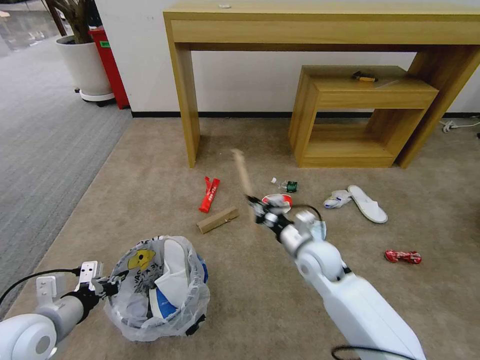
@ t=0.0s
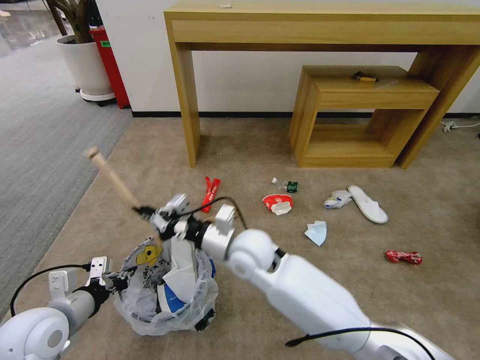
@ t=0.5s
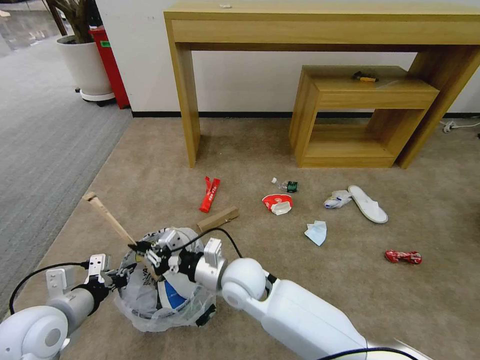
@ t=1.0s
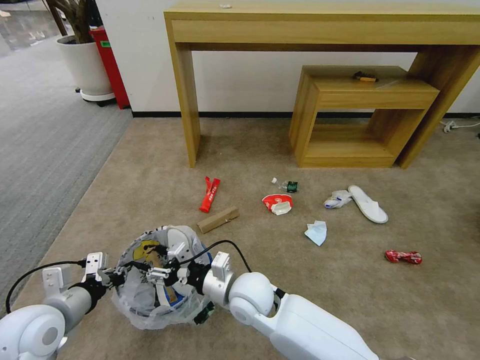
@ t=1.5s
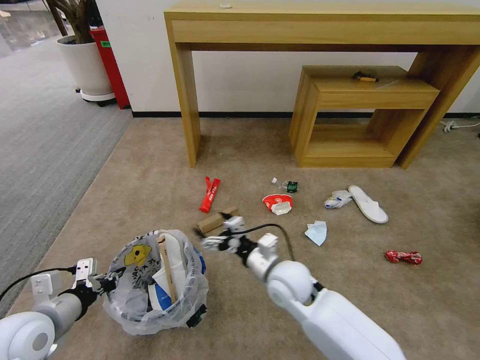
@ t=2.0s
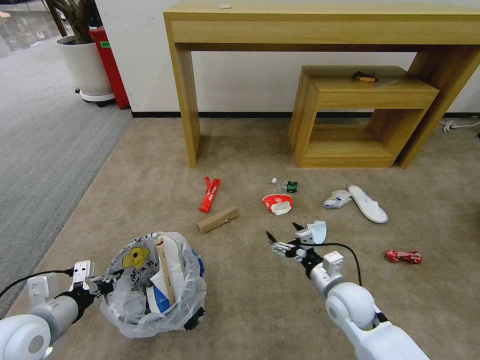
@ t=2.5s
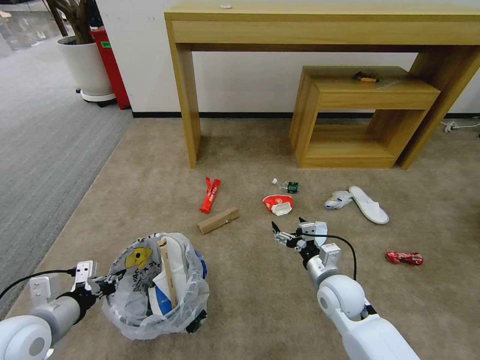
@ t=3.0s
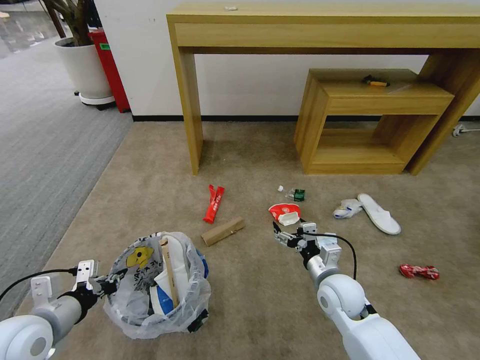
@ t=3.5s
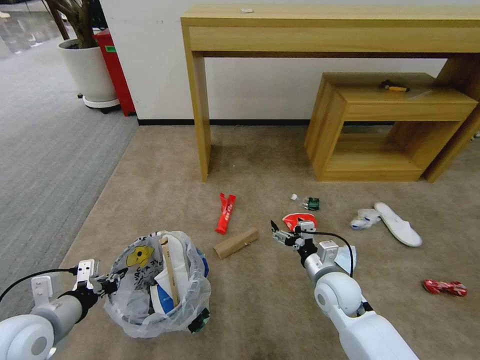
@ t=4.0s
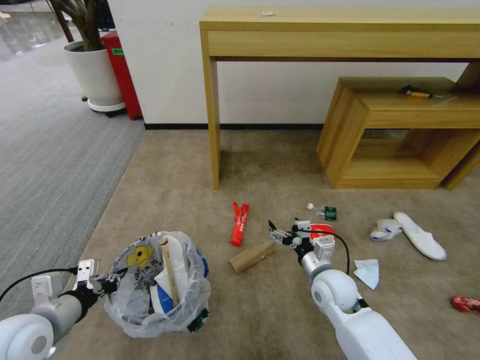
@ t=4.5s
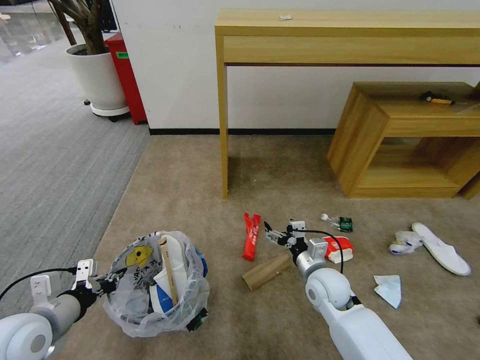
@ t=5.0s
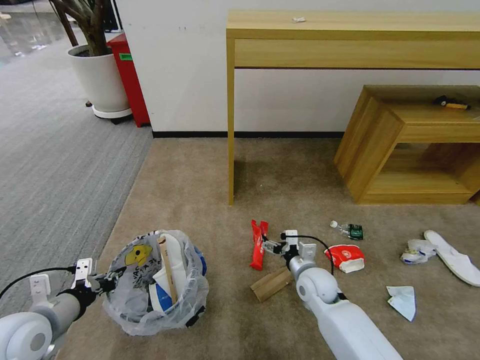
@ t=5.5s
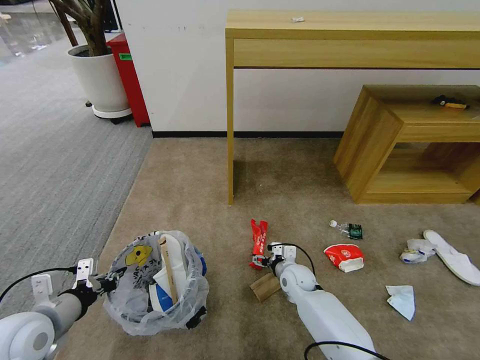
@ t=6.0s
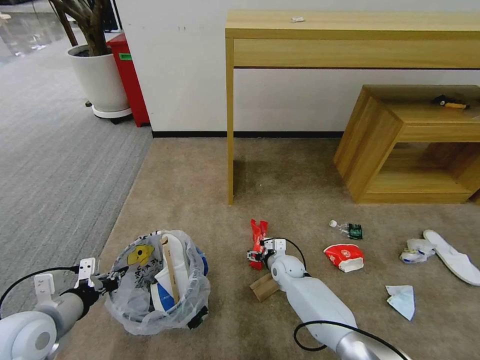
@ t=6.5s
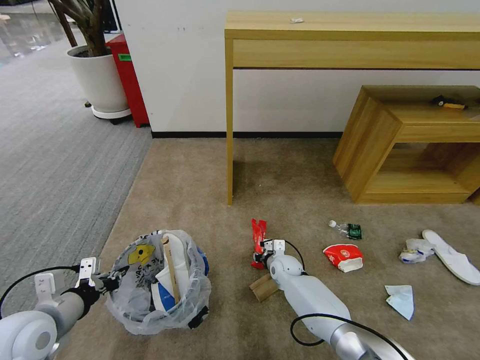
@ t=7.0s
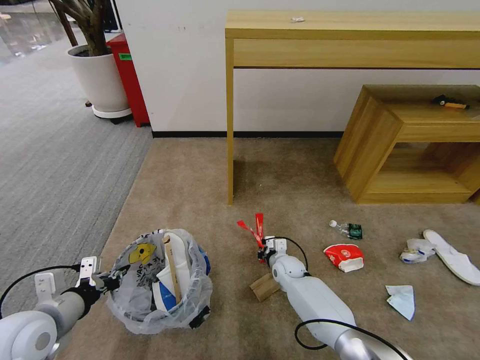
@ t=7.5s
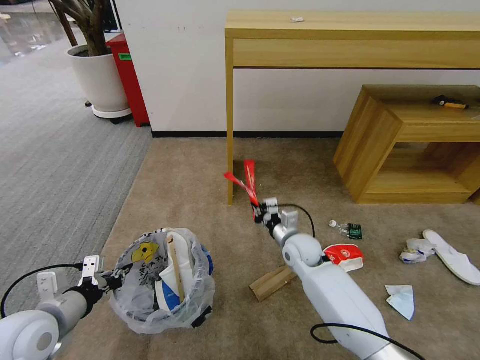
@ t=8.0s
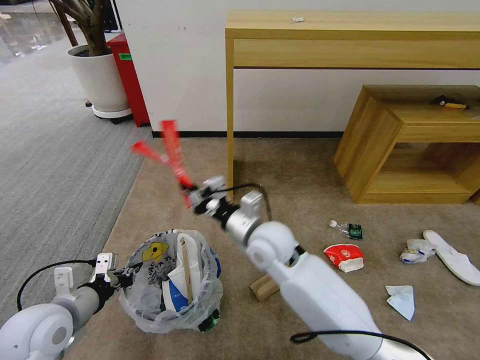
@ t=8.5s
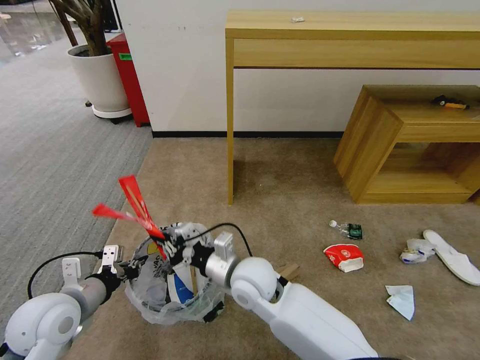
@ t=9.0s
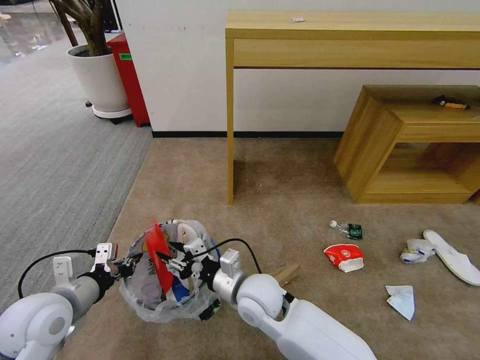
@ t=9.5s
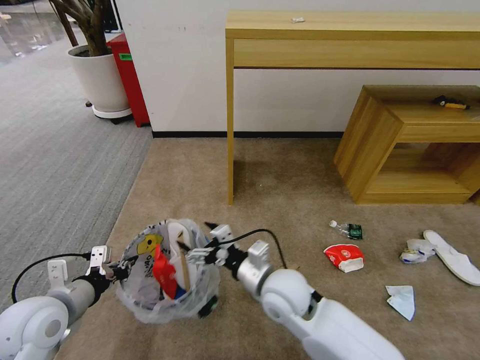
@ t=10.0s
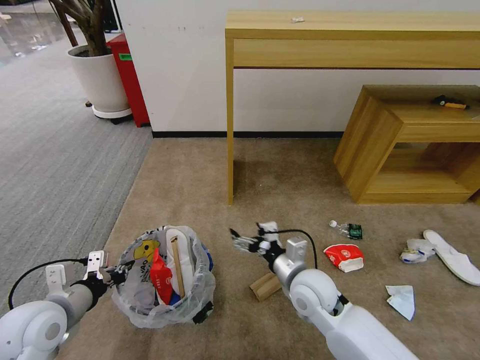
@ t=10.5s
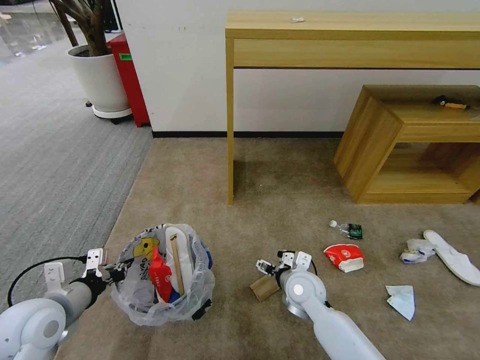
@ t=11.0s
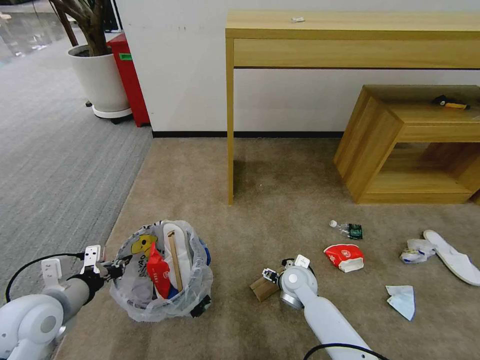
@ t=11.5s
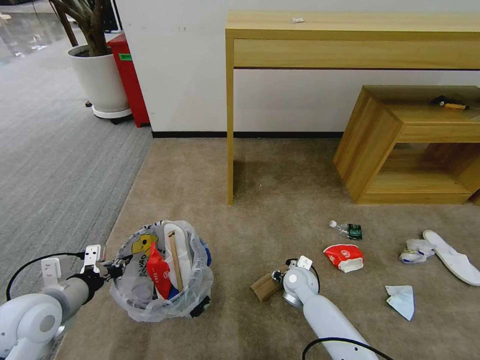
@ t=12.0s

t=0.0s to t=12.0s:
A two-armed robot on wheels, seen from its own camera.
Task of the whole recording: Pick up the trash bin and place the garbage on the floor into it.
t=0.0s to t=2.0s: The right gripper is displaced to the left by roughly 5 cm, and opens.
t=2.0s to t=4.0s: The right gripper moves to the right, about 10 cm.
t=4.0s to t=6.0s: The right gripper heads downward, forward and to the left, covering about 15 cm.
t=6.0s to t=8.0s: The right gripper travels upward by approximately 15 cm, and closes up.
t=8.0s to t=10.0s: The right gripper shifts roughly 15 cm backward, to the left and upward, and opens.
t=10.0s to t=12.0s: The right gripper goes approximately 20 cm downward, forward and to the right, and closes.

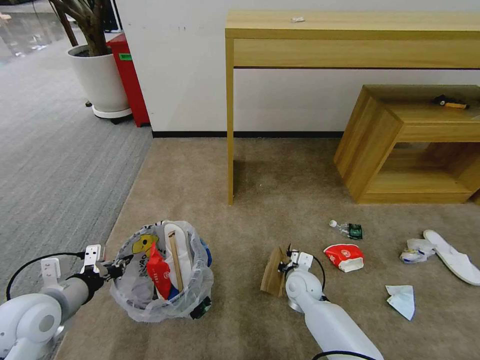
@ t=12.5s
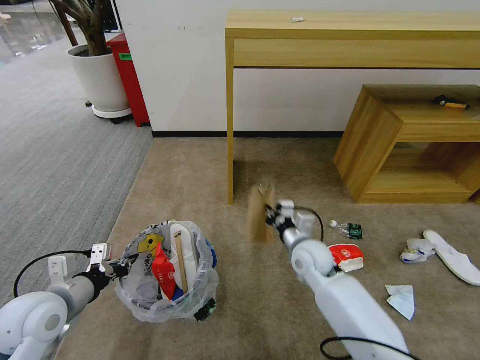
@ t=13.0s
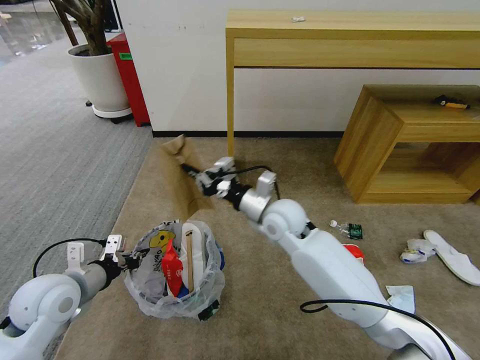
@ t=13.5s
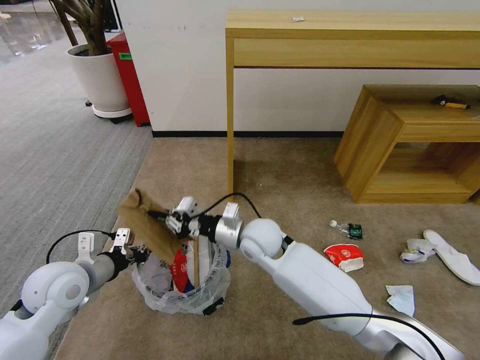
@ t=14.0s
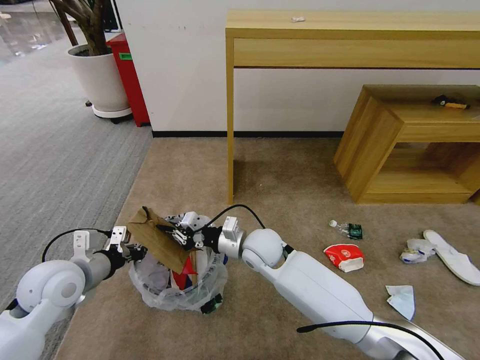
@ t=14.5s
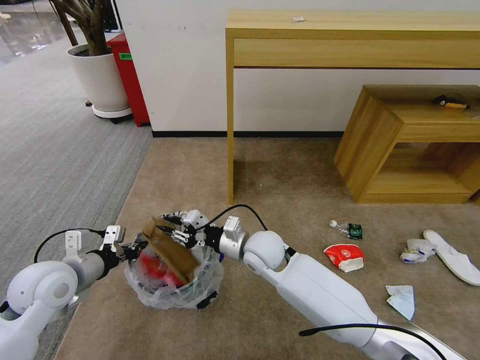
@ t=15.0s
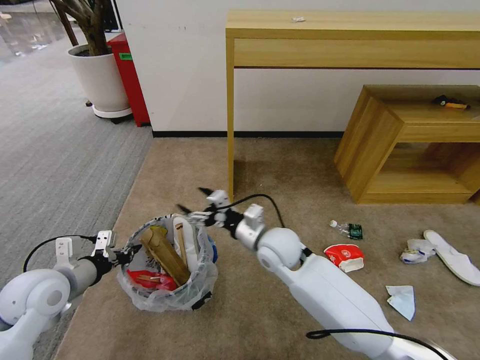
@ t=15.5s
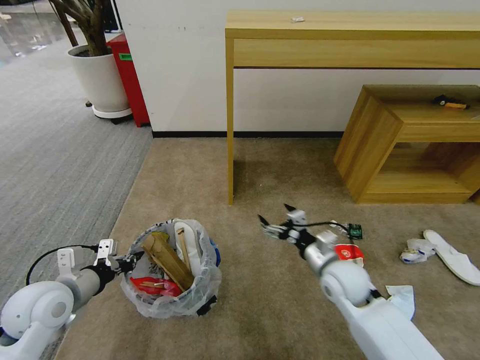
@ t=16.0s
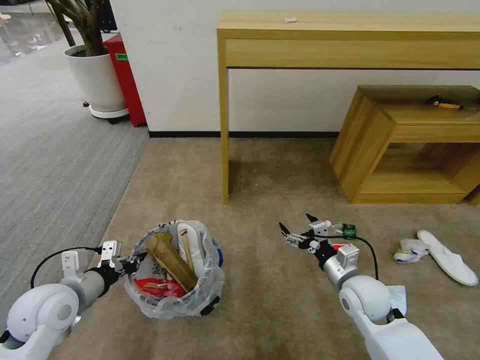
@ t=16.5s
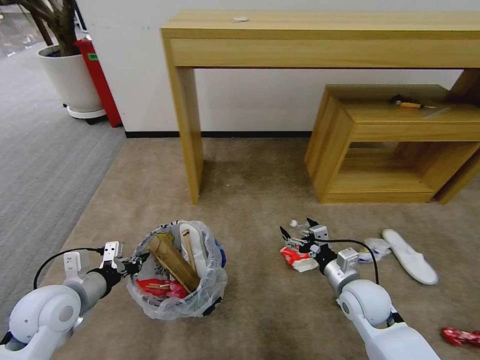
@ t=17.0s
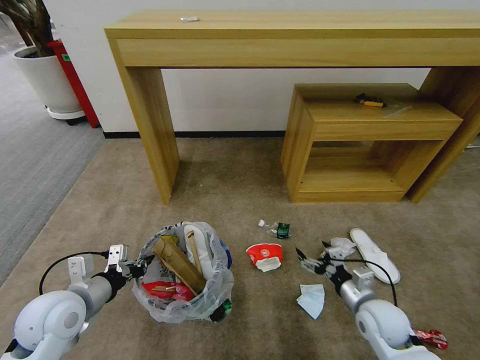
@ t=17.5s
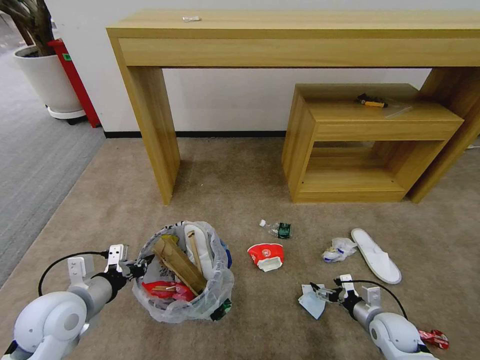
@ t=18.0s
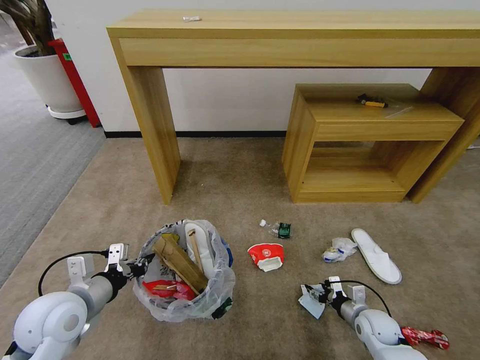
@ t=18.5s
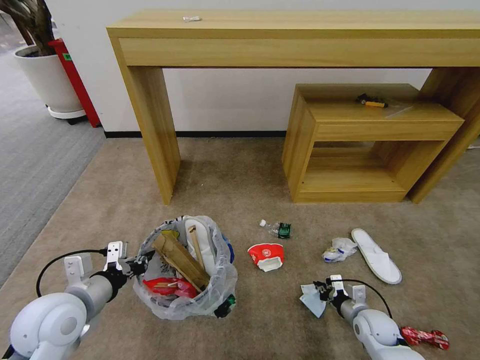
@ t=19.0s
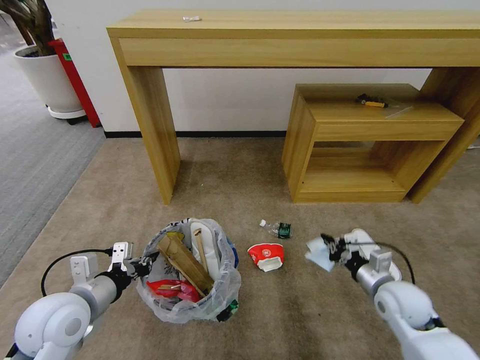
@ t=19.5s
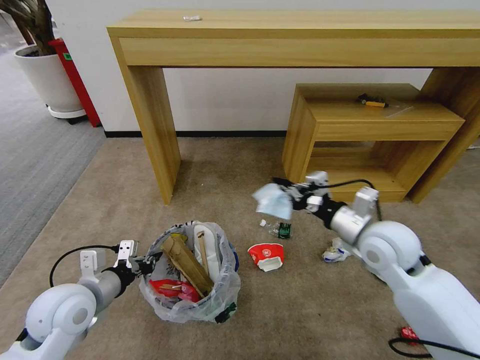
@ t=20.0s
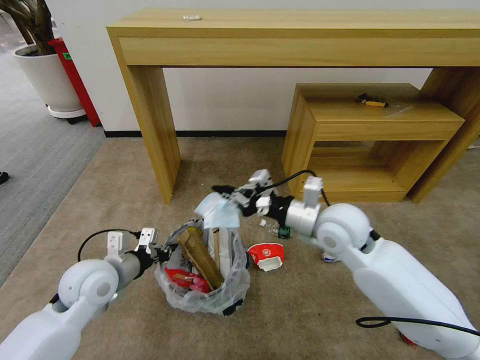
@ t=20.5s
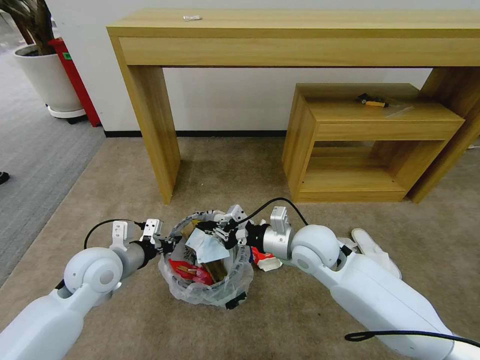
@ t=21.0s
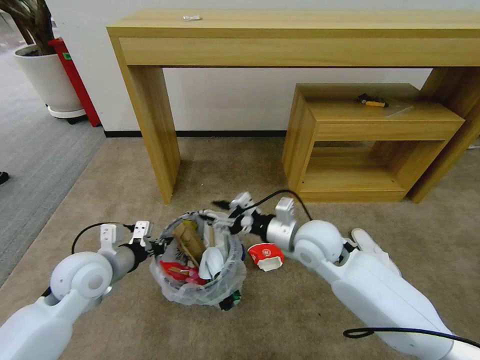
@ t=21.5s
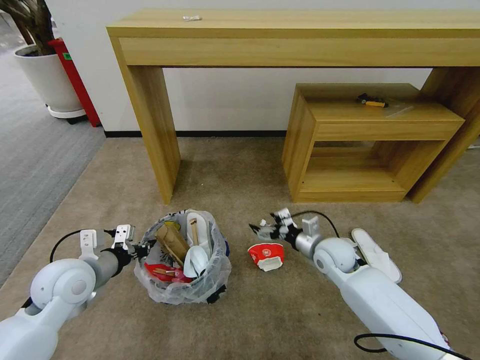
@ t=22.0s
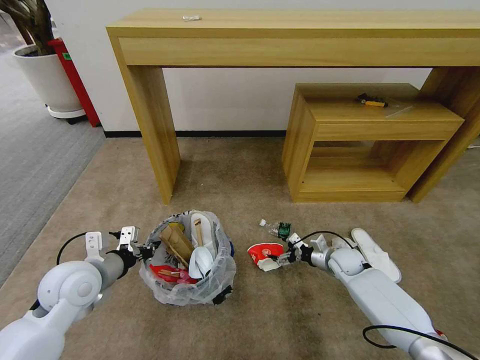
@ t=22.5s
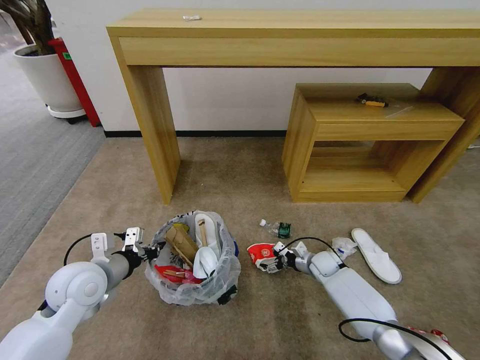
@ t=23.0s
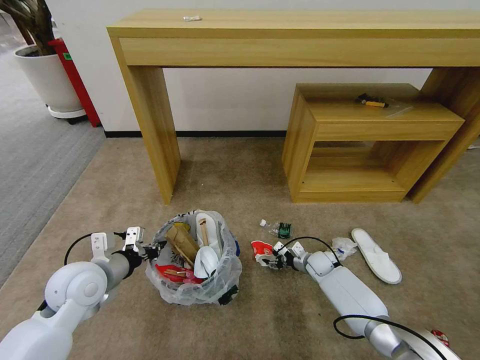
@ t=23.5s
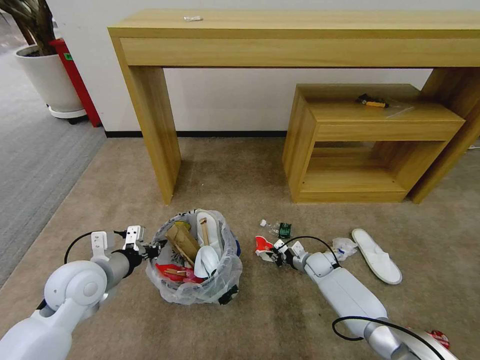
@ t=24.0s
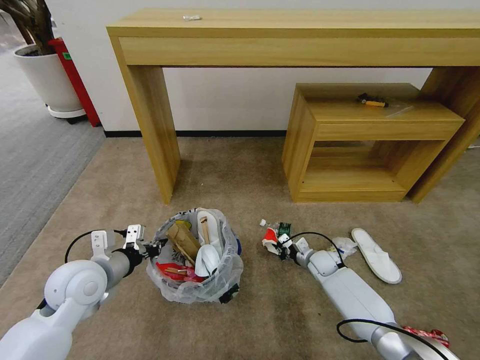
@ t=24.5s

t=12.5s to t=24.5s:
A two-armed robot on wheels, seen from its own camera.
Task of the whole recording: Pick up the trash bin and place the garbage on the floor into it.
t=12.5s to t=14.5s: The right gripper moves upward and to the left, some 20 cm. The left gripper goes some 5 cm forward.
t=14.5s to t=16.5s: The right gripper heads to the right and backward, covering about 25 cm, and opens its fingers.
t=16.5s to t=18.5s: The right gripper travels downward and to the right by about 20 cm.
t=18.5s to t=20.5s: The right gripper moves upward and to the left, some 35 cm, and closes up; the left gripper moves forward, approximately 5 cm.
t=20.5s to t=22.5s: The right gripper moves downward and to the right, approximately 30 cm, and opens up.
t=22.5s to t=24.5s: The right gripper ends up about 5 cm from where it was, and closes up.

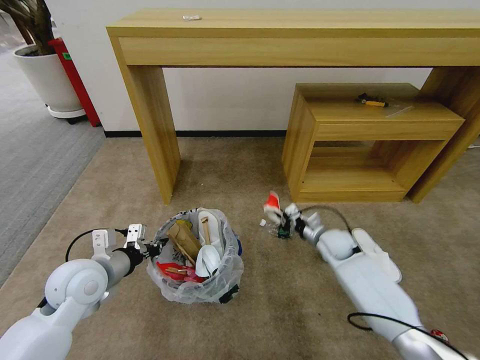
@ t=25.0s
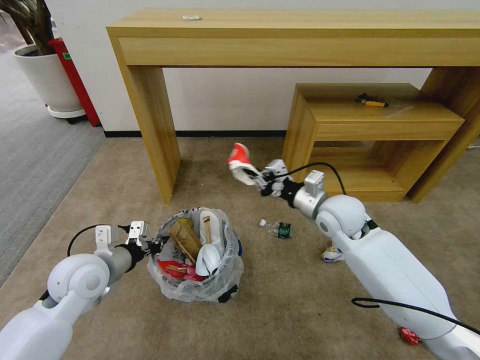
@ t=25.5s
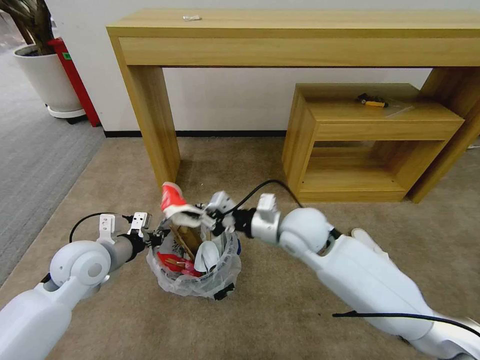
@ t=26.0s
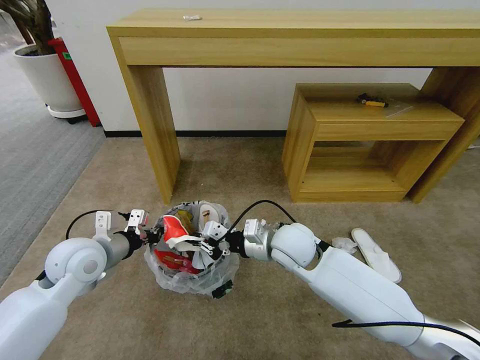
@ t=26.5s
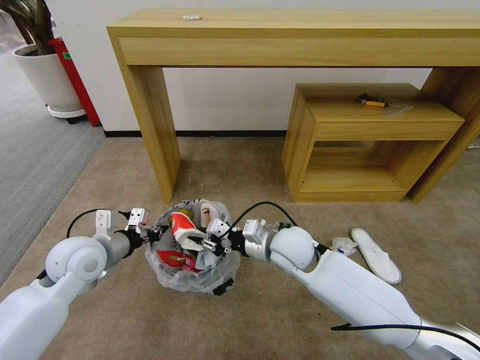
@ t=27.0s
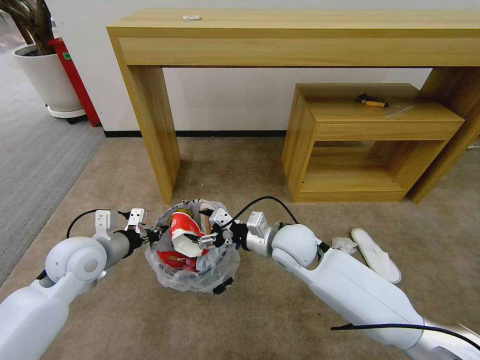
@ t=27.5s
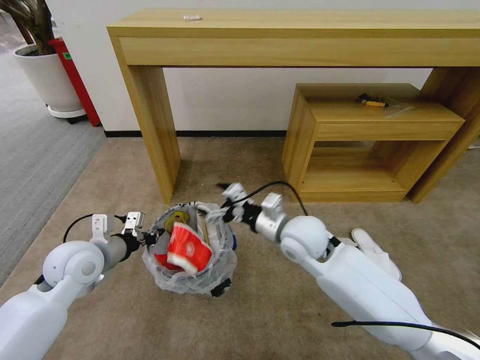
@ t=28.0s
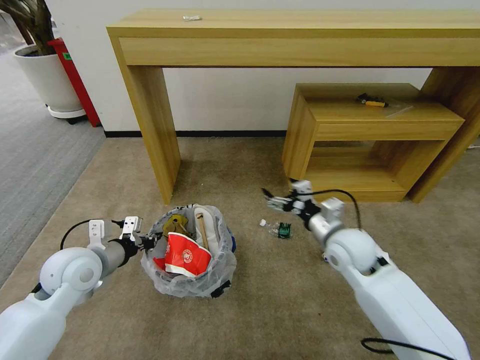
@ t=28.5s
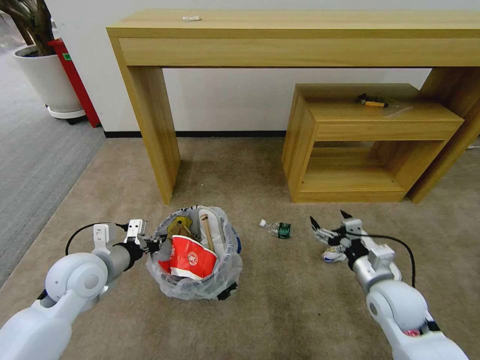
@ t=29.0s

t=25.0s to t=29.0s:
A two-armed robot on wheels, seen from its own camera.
Task of the whole recording: Pick up the trash bin and place the garbage on the floor into it.
t=25.0s to t=27.0s: The right gripper shifts approximately 25 cm to the left, upward and backward.
t=27.0s to t=29.0s: The right gripper travels to the right and backward by approximately 25 cm, and opens its fingers.
